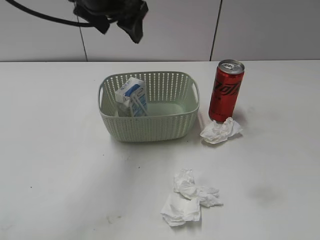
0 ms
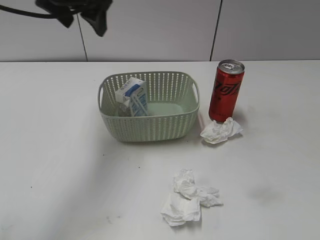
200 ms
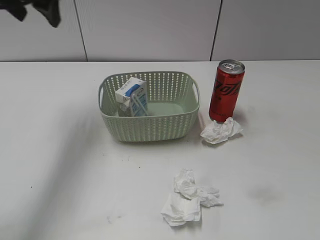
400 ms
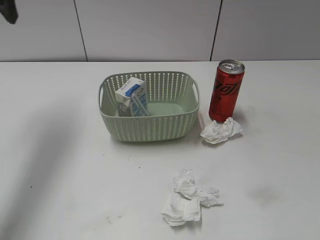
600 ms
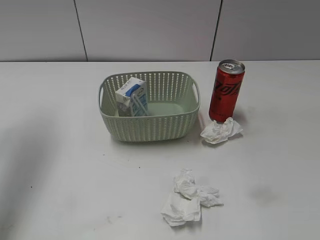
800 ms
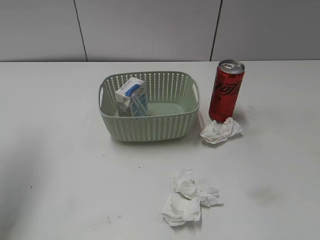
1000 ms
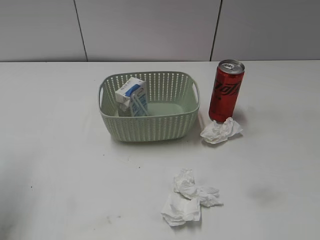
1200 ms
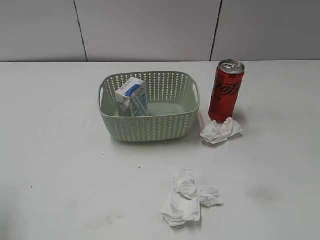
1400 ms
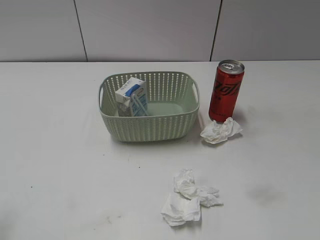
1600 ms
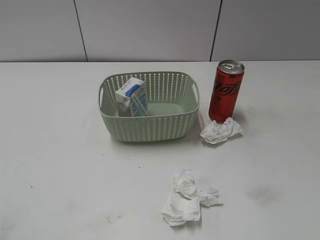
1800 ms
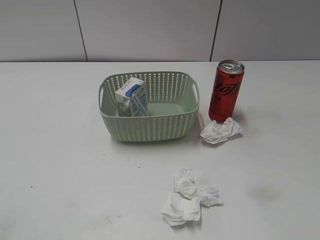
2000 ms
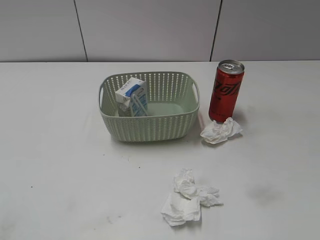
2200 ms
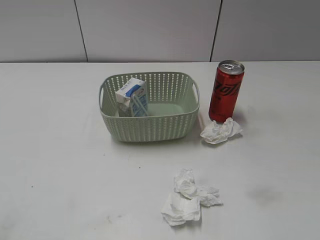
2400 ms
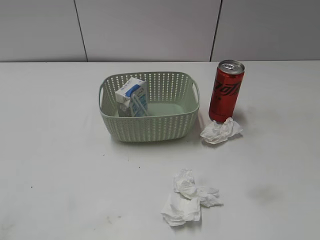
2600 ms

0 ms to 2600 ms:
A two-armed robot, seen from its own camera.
0 ms to 1200 ms: The left gripper is displaced to the left and backward by about 25 cm.
1200 ms to 2600 ms: The left gripper shifts roughly 25 cm backward.

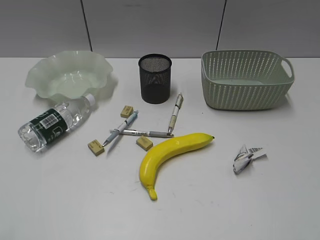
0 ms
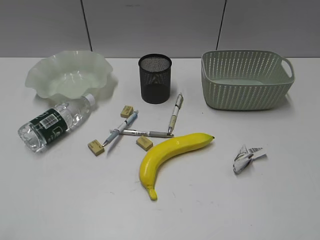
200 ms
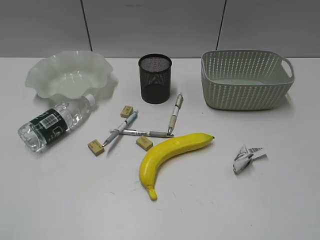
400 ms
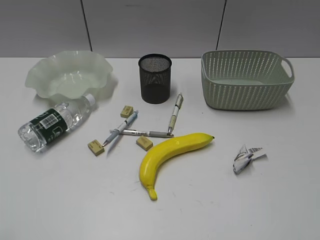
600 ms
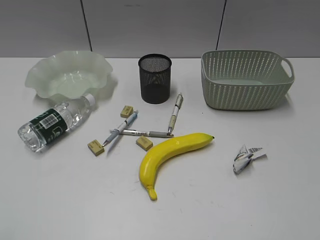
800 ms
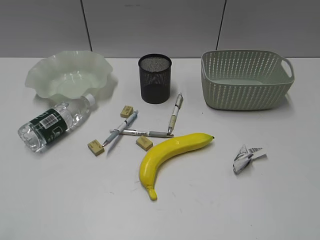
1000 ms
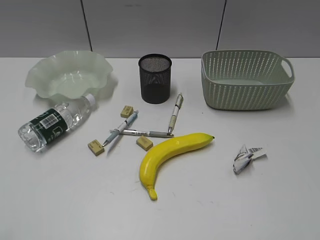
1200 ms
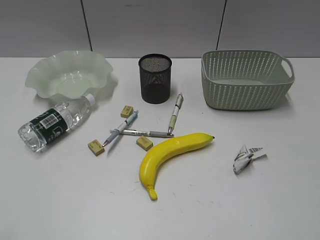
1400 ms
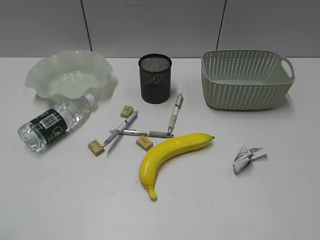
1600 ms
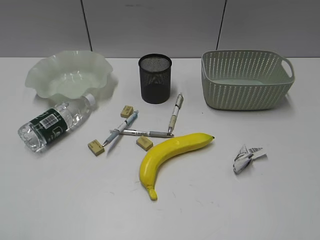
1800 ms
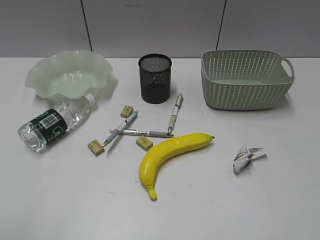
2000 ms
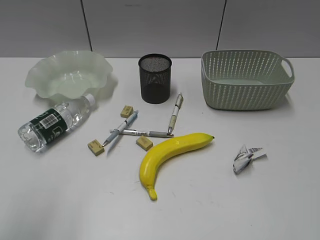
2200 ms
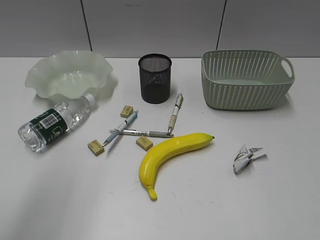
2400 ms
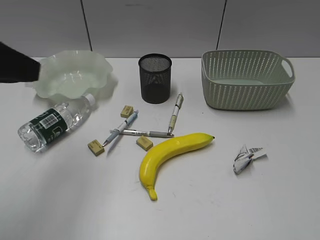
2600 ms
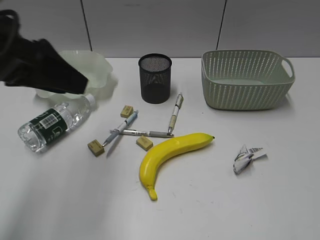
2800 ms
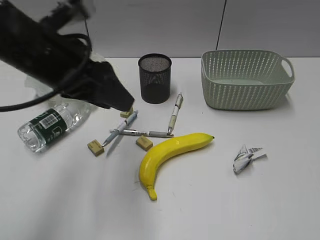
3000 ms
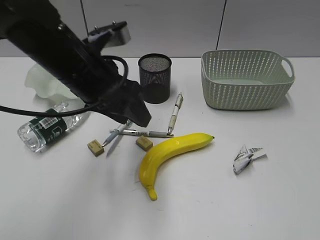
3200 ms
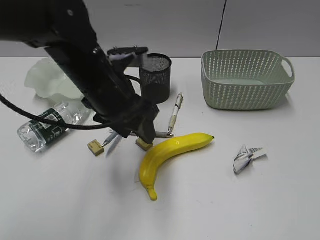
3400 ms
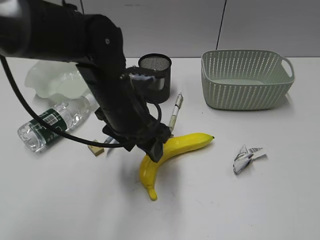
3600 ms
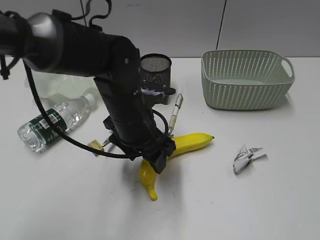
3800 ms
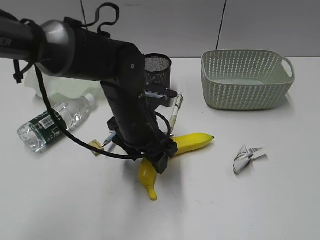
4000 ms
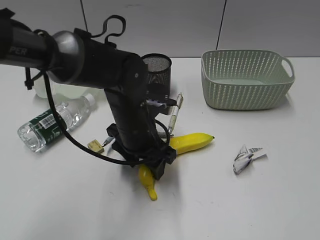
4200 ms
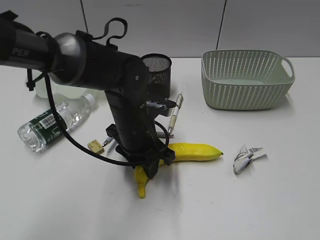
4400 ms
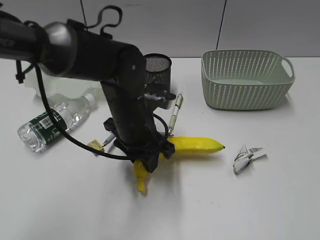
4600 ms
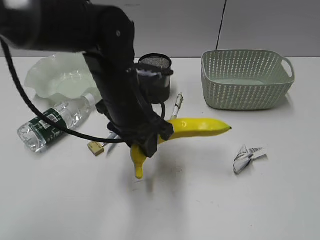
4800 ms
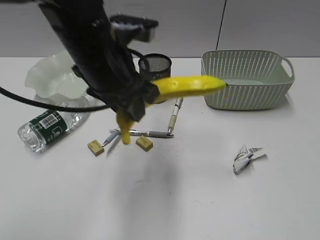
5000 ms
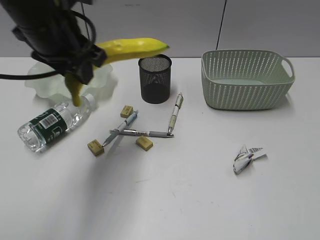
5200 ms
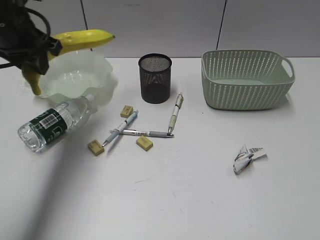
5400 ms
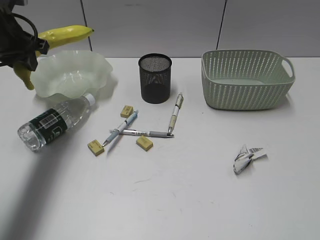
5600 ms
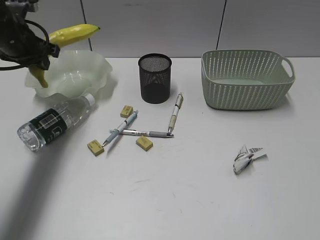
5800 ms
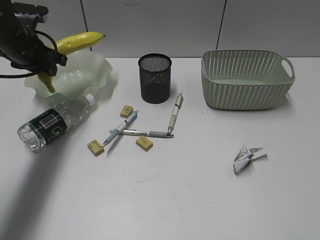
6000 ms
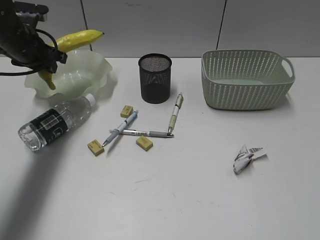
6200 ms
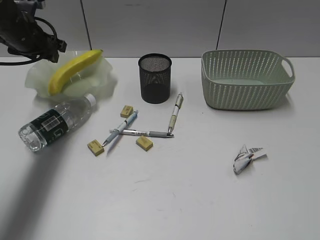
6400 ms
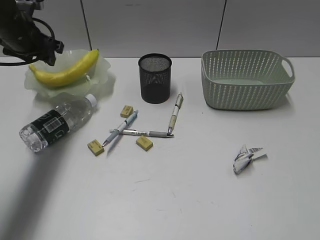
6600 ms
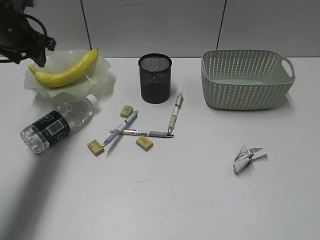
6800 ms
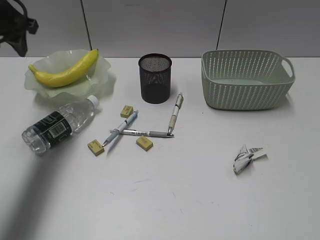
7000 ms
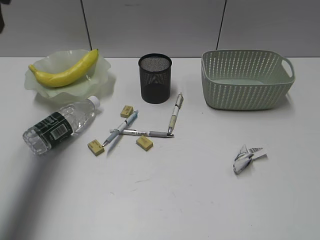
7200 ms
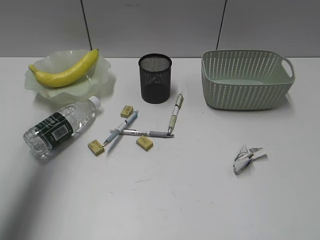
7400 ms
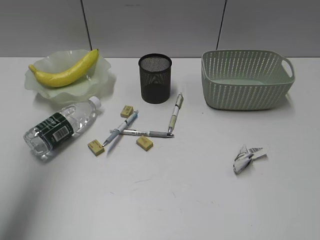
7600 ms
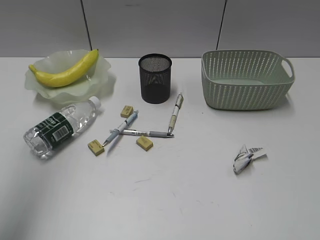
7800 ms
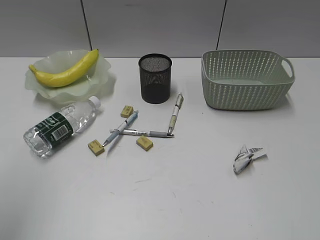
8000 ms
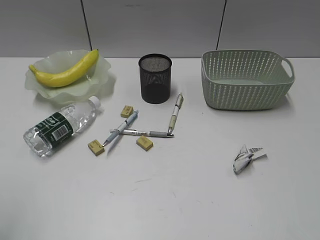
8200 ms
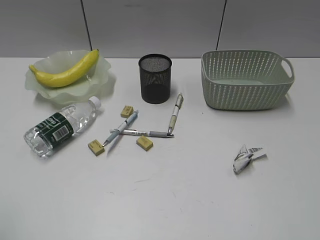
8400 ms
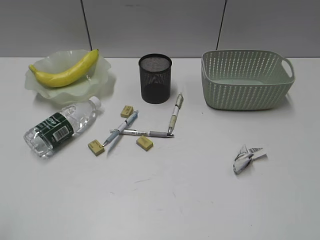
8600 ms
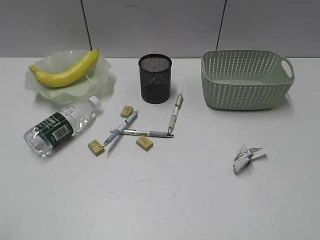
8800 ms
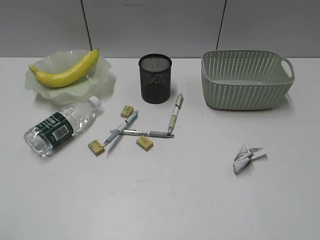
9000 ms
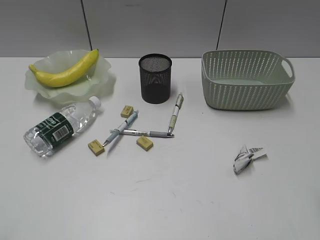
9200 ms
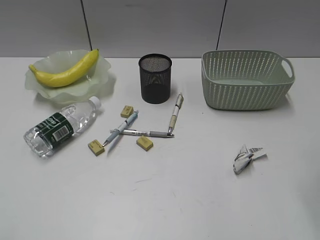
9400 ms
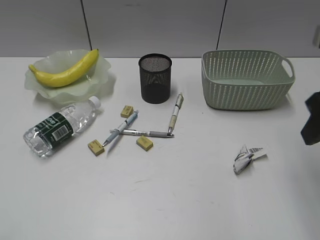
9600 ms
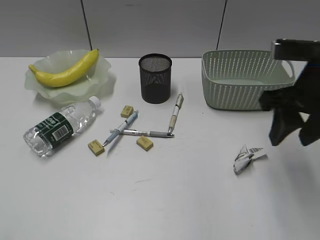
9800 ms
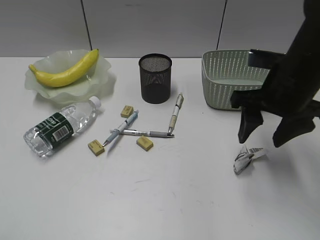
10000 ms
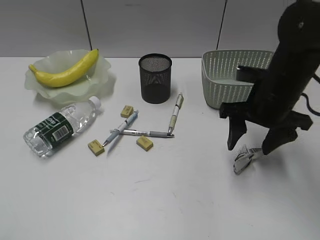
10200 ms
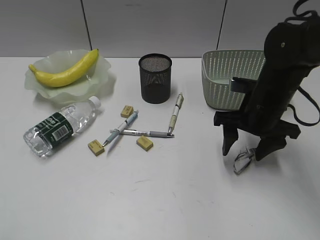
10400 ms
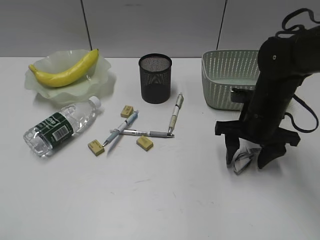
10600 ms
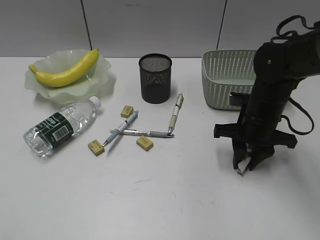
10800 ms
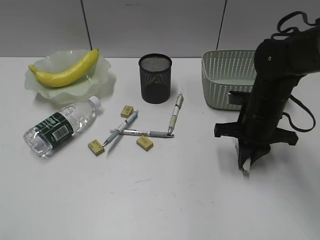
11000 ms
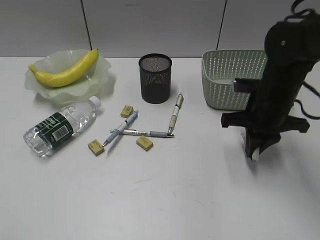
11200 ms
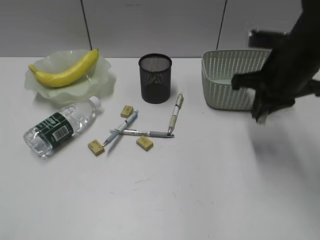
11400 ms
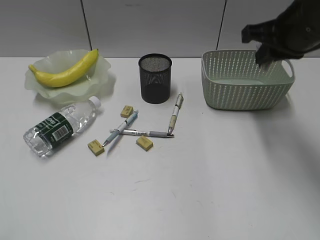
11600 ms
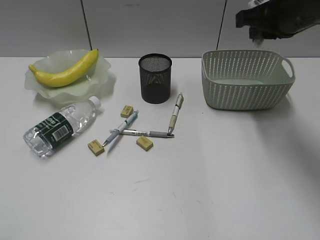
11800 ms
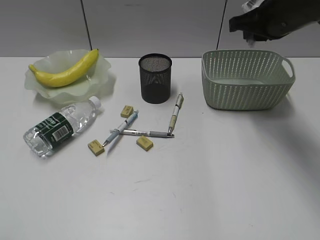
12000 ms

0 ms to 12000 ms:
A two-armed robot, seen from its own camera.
Step, 1600 ms to 4400 ms: Grasp the banana with left gripper.
Step, 4600 ms to 6400 ms: Place the banana in the plate with left gripper.
Step, 6600 ms to 11000 ms: Grasp the waste paper with right gripper.
1600 ms to 3000 ms: The left gripper shifts roughly 30 cm forward and to the right.
3000 ms to 4400 ms: The left gripper moves downward and to the right, approximately 20 cm.
4400 ms to 6000 ms: The left gripper goes approximately 25 cm to the left and forward.
6000 ms to 7600 ms: The left gripper heads upward and backward, covering roughly 30 cm.
7600 ms to 9000 ms: The left gripper travels backward and downward by about 30 cm.
9000 ms to 10400 ms: The right gripper goes roughly 35 cm forward, downward and to the left.
10400 ms to 12000 ms: The right gripper goes some 15 cm upward and forward, and closes its fingers.

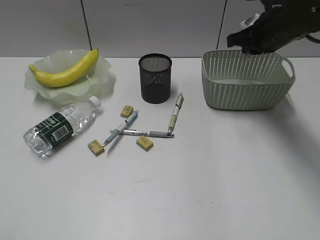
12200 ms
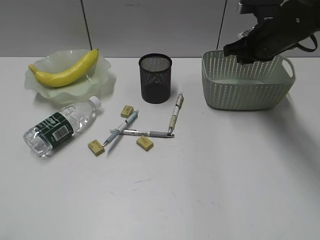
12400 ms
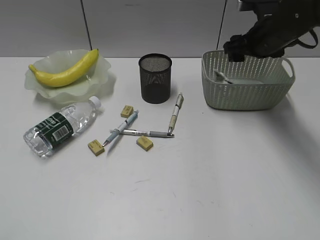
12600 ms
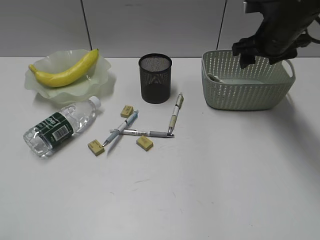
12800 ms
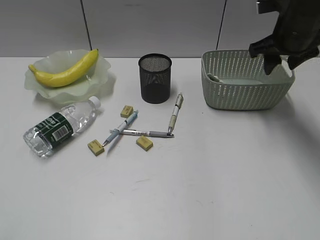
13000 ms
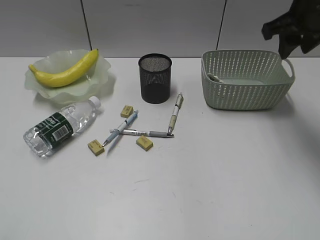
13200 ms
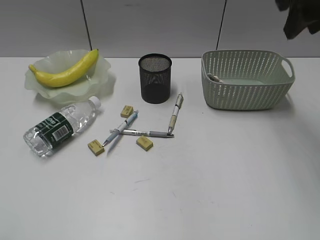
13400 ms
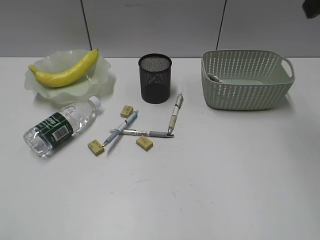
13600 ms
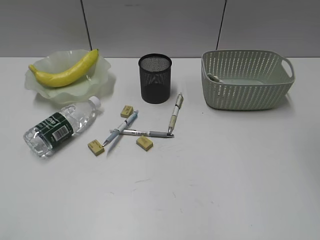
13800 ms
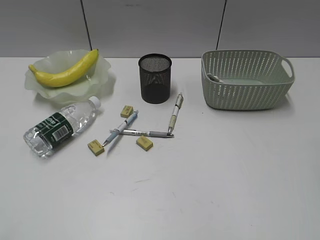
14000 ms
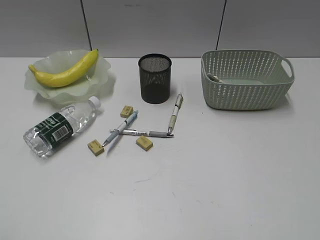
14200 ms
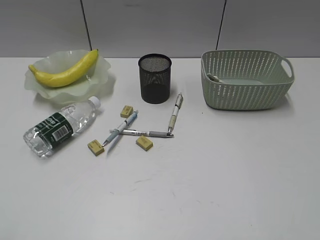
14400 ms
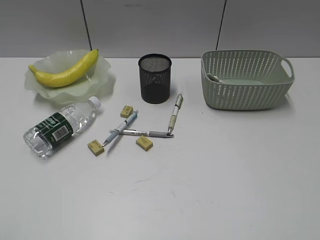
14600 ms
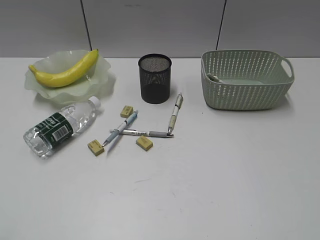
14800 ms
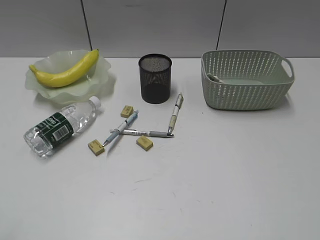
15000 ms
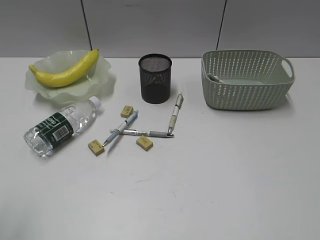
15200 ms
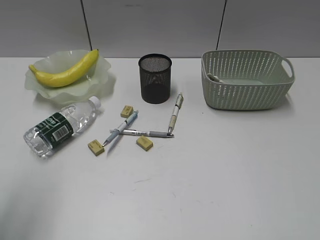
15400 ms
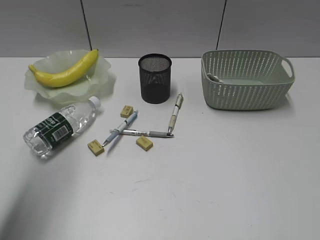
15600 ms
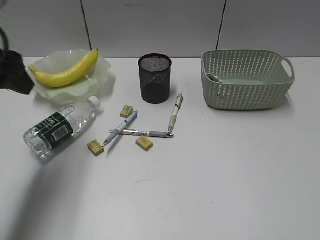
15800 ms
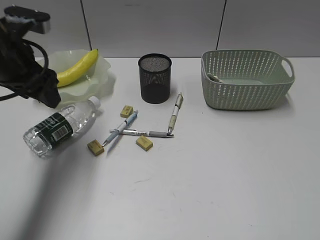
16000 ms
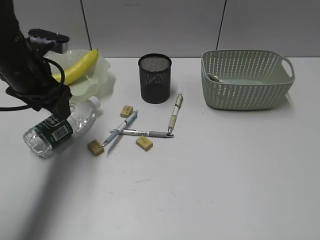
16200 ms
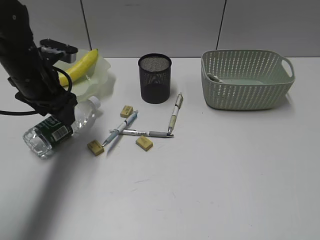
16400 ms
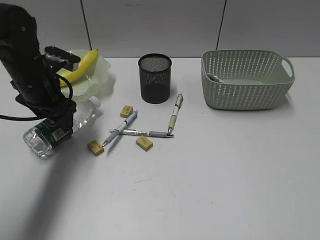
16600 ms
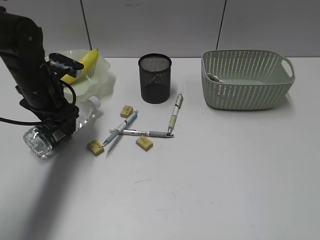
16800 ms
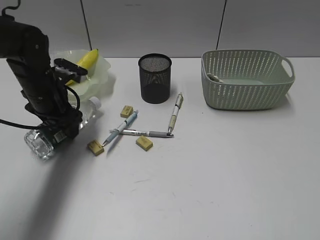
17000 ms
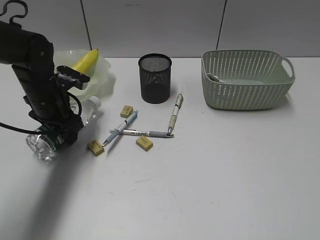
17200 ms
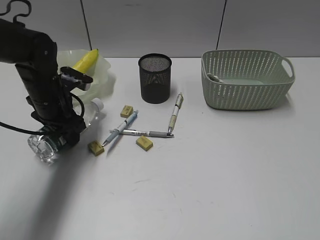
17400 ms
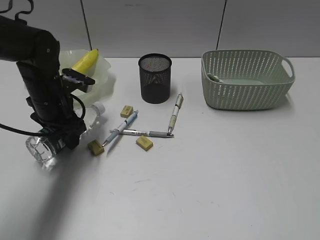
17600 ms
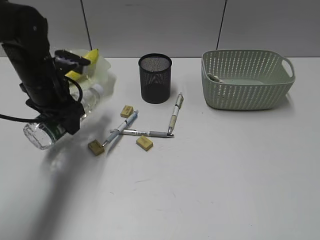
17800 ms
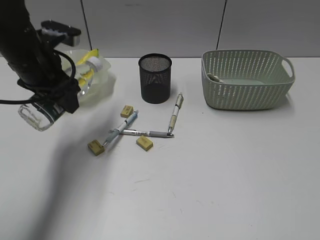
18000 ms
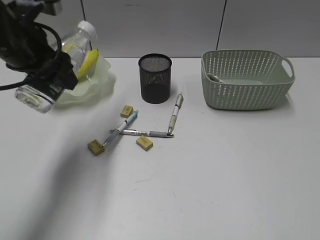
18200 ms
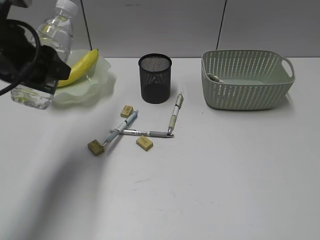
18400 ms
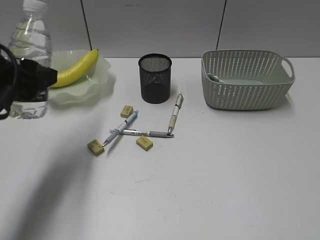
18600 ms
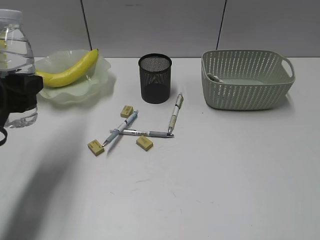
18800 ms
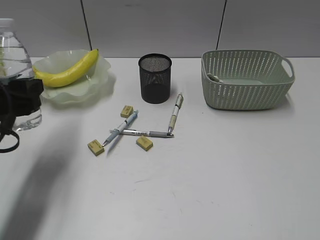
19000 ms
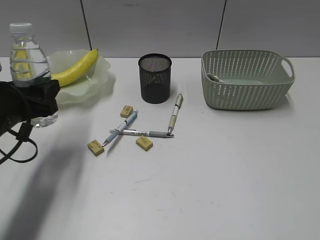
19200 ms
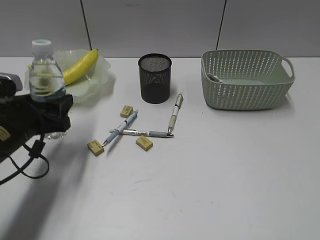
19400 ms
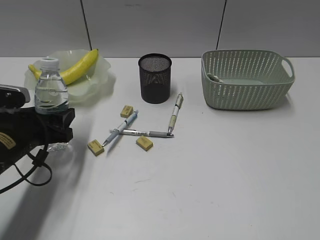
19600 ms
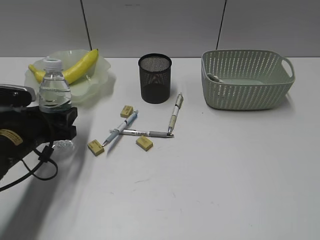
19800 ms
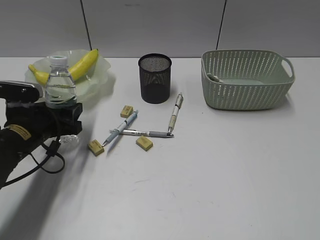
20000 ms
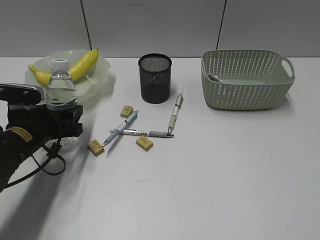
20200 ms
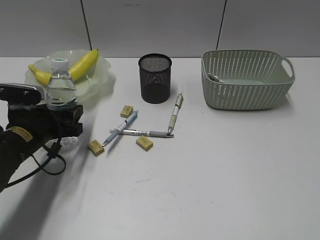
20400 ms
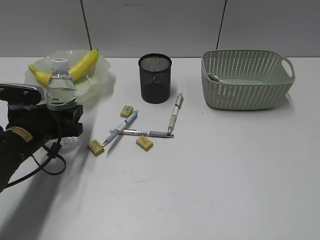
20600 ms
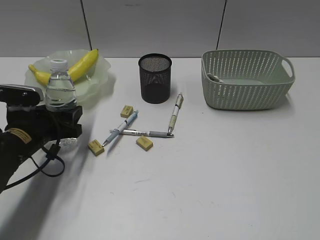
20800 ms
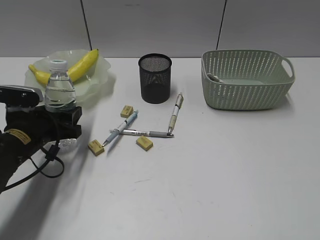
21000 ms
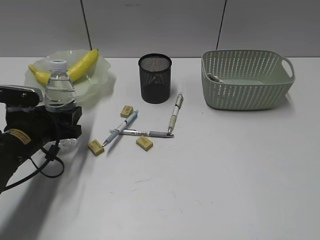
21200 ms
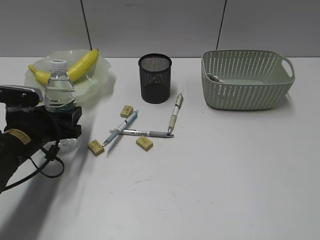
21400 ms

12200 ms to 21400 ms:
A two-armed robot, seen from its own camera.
Step, 12800 ms to 17200 ms: Grasp the bottle with left gripper.
12200 ms to 13800 ms: The right gripper is displaced upward and backward by some 25 cm, and opens.
15200 ms to 16800 ms: The left gripper heads forward and downward, covering about 35 cm, and opens up.
16800 ms to 18400 ms: The left gripper is displaced upward and backward by roughly 15 cm.
18400 ms to 19800 ms: The left gripper travels downward by roughly 20 cm.
19800 ms to 21400 ms: The grippers move only a little.
